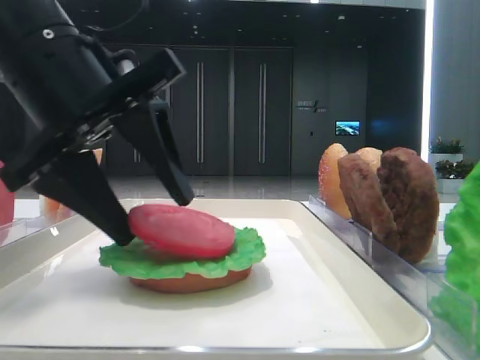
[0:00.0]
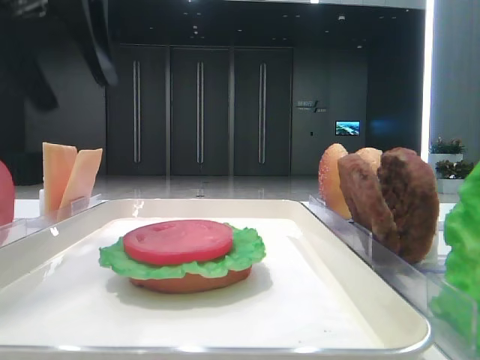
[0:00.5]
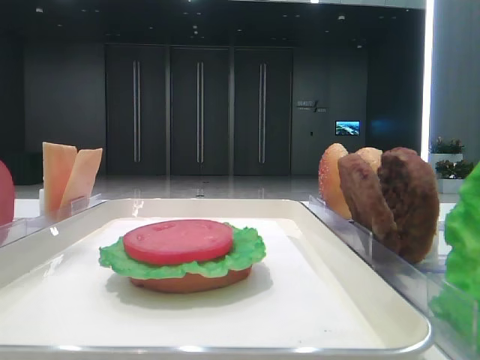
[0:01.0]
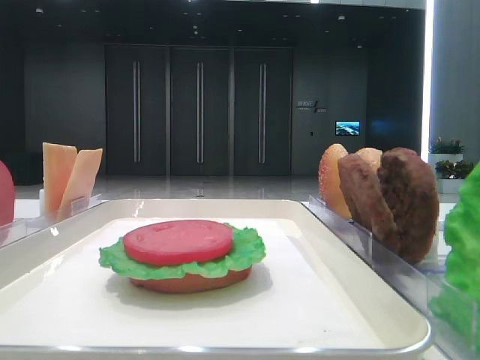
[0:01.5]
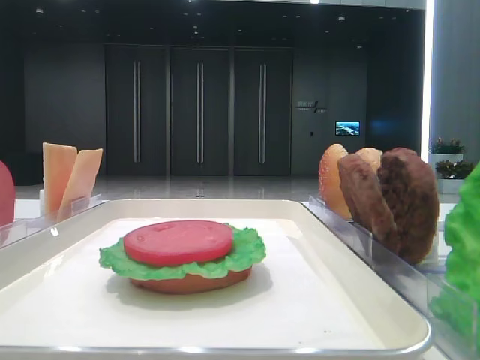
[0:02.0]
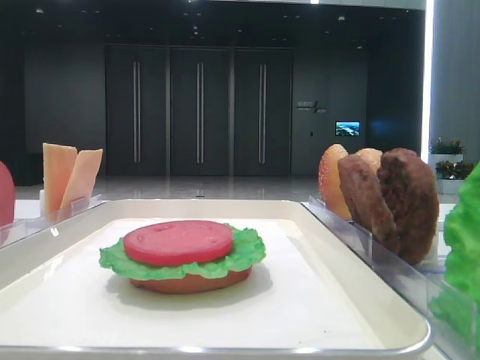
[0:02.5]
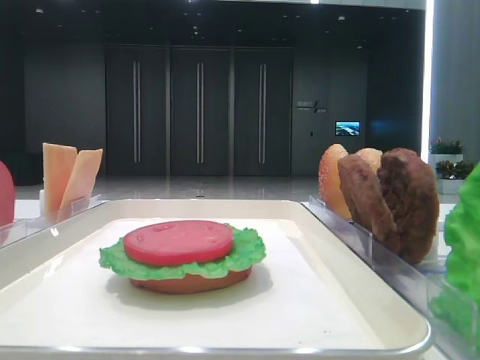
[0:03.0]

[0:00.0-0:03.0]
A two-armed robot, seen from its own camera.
0:00.0 to 0:01.5: The left gripper heads to the left and upward, covering roughly 25 cm.

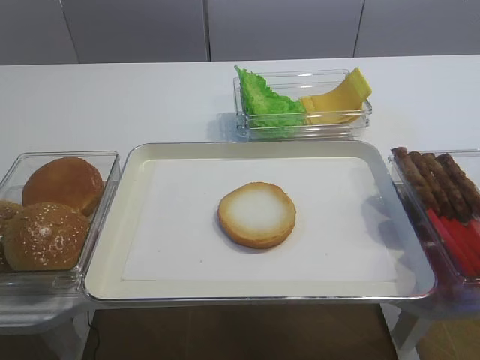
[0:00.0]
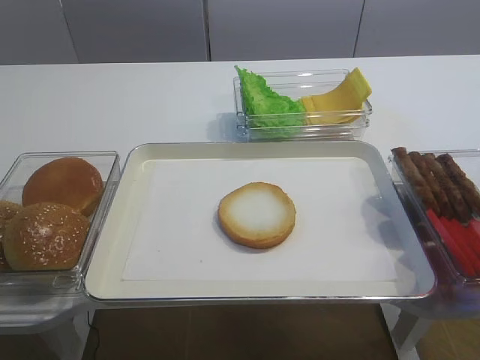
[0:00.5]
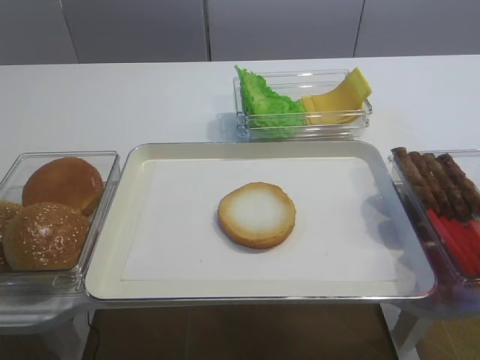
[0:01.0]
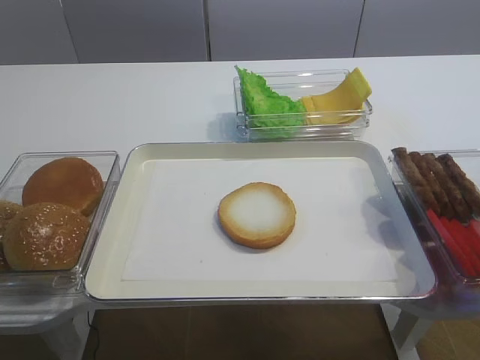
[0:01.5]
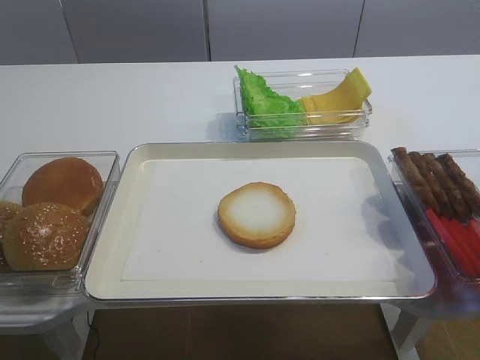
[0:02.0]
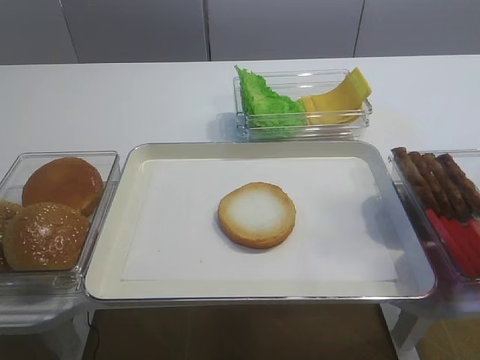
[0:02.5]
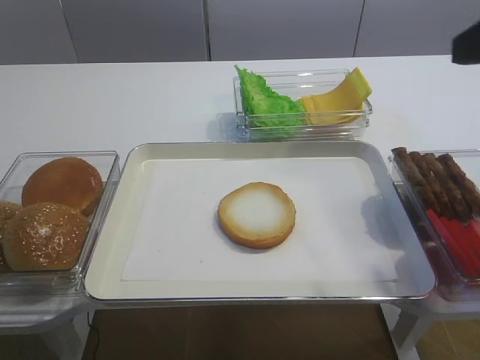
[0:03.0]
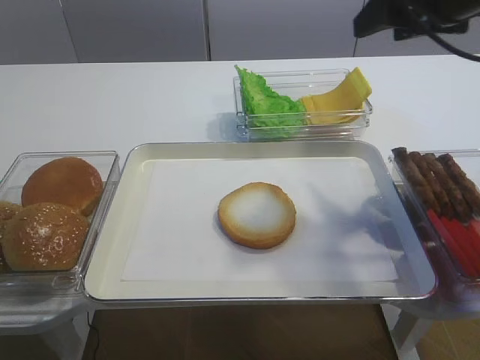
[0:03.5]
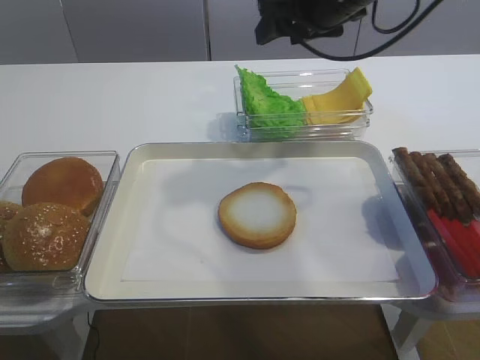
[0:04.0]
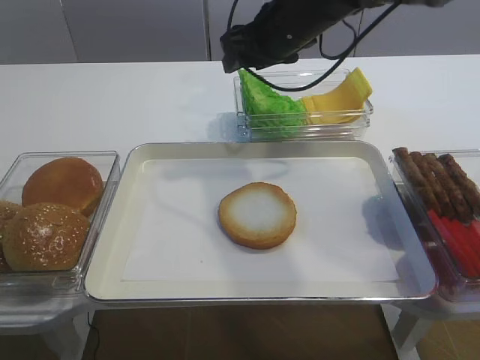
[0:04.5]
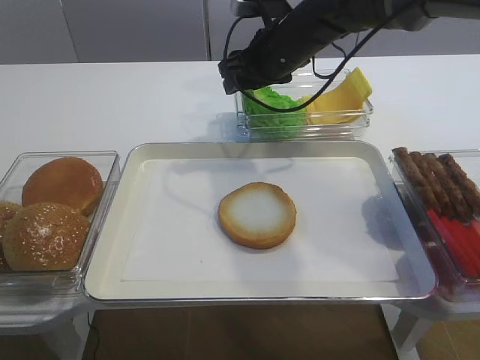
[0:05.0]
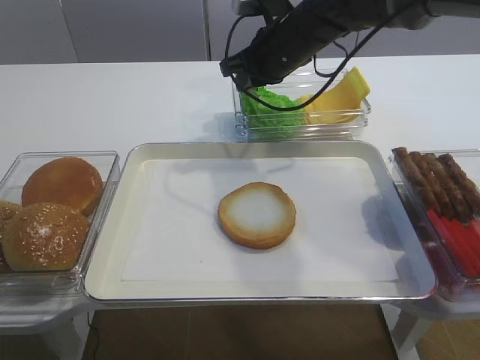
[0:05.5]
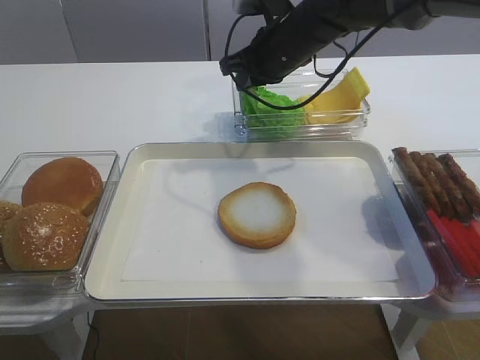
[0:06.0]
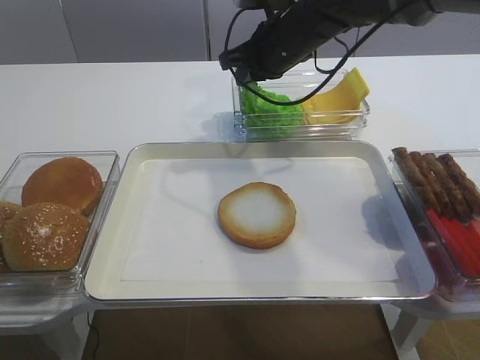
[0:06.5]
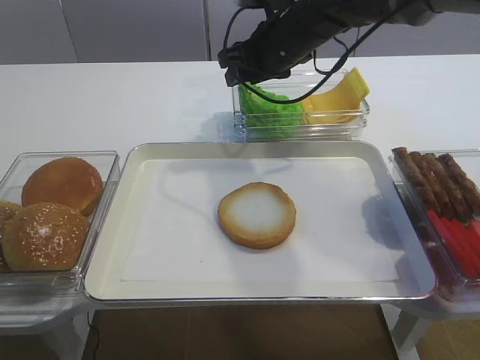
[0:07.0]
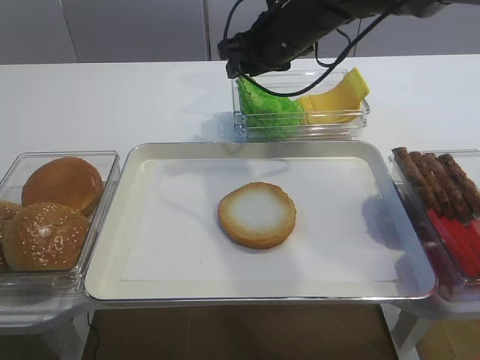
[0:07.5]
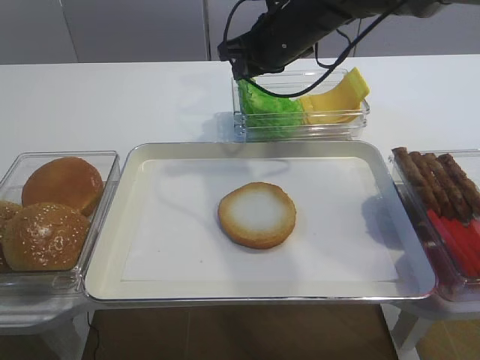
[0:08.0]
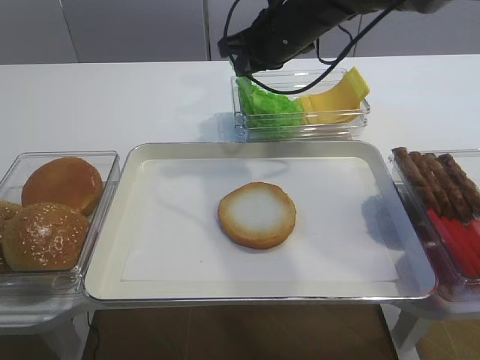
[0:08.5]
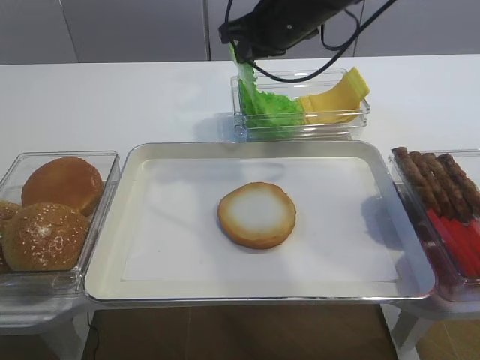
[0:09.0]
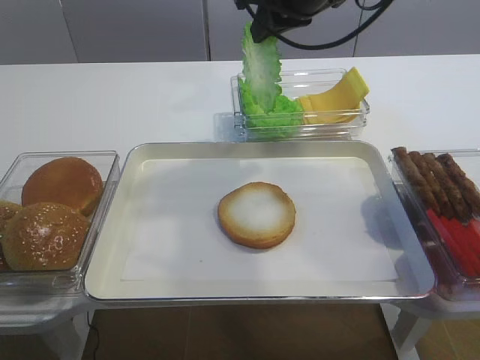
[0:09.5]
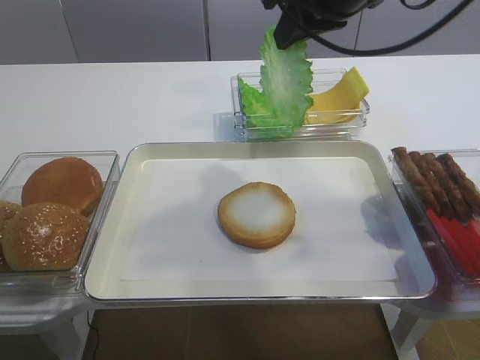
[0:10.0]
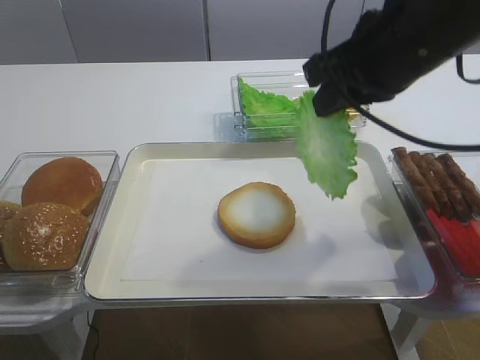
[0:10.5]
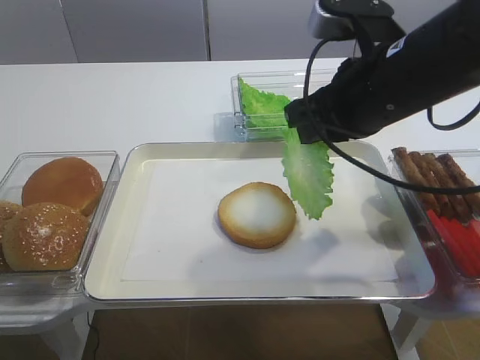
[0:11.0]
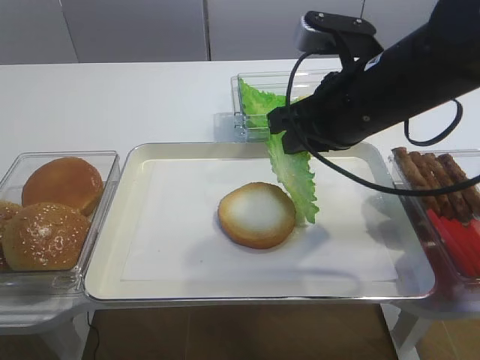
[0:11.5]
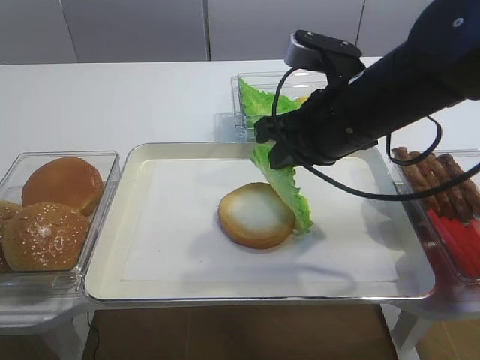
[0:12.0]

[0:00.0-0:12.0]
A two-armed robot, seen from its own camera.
Step, 0:00.0 to 0:09.5: Pick up the lettuce leaf with the right gripper.
0:02.0 to 0:04.0: The right gripper goes approximately 40 cm forward and to the left.
0:04.0 to 0:06.0: The right gripper travels downward, to the left and forward by approximately 10 cm, and closes up.
0:06.0 to 0:08.0: The right gripper opens, then closes again.
0:08.0 to 0:10.0: The right gripper is displaced backward and upward by approximately 15 cm.
0:10.0 to 0:12.0: The right gripper moves downward and backward, about 15 cm.

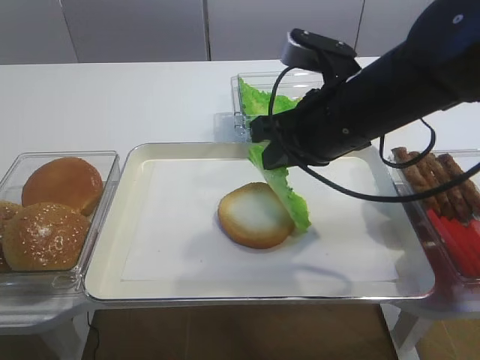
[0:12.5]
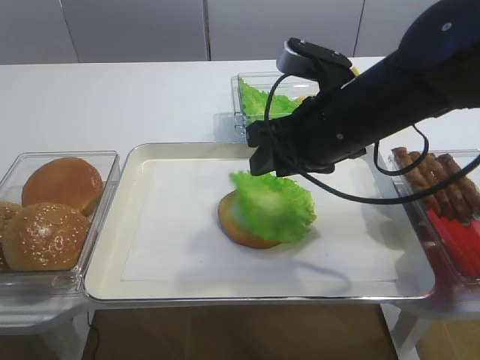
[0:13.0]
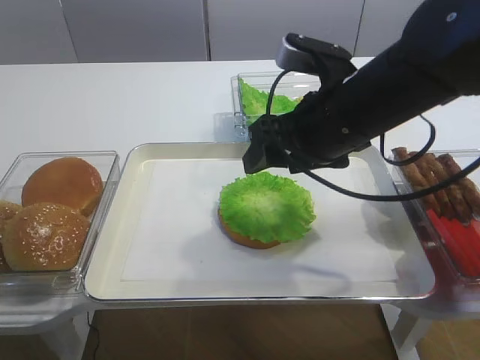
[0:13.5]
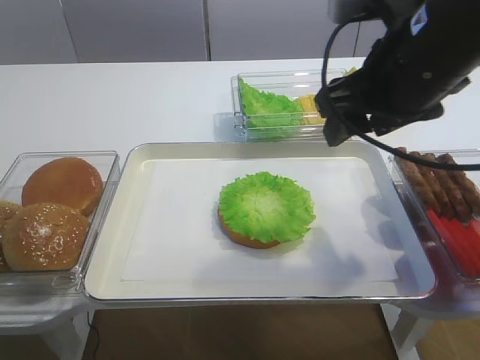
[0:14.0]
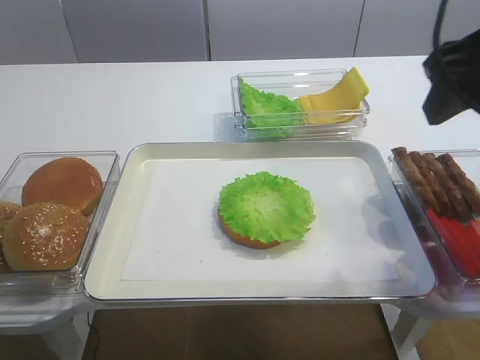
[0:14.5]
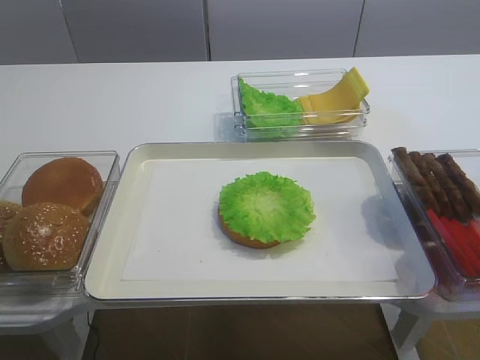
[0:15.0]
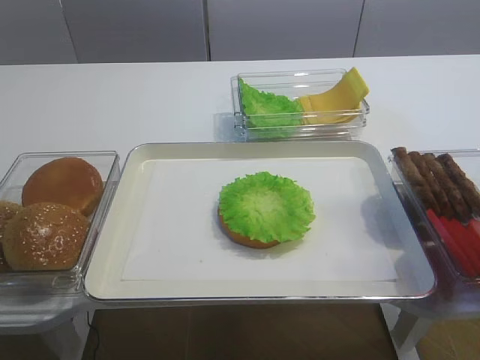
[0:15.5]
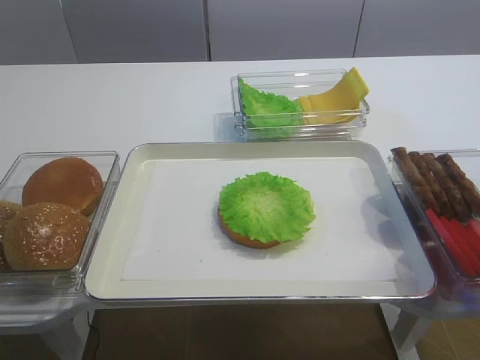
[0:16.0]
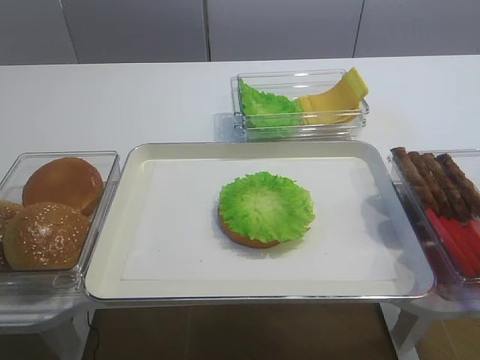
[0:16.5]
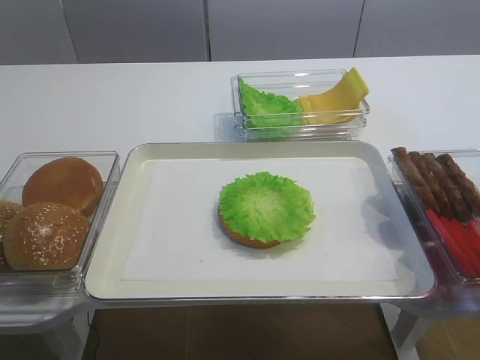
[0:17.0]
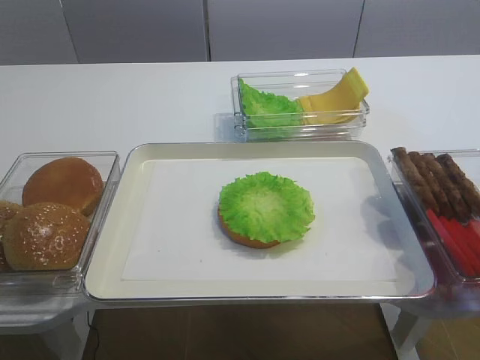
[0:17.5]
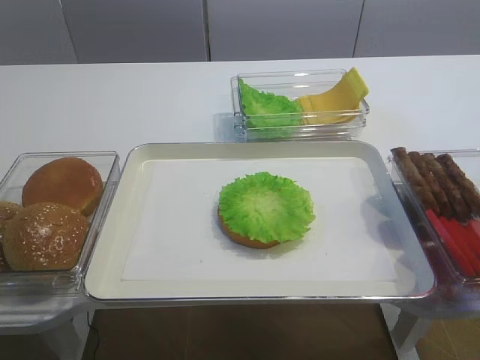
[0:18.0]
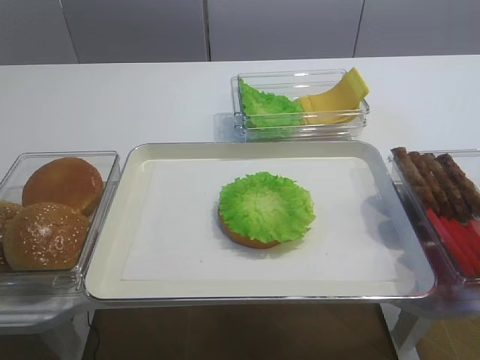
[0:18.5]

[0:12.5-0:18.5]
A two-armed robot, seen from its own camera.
0:12.5 to 0:14.5: The right gripper travels upward, to the right and backward by some 15 cm, and opens.
0:14.5 to 0:16.5: The right gripper is displaced backward by about 30 cm.
